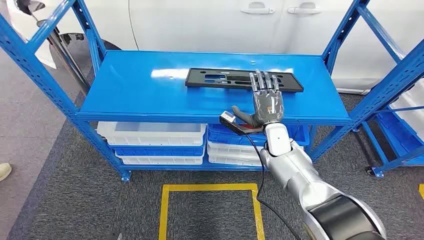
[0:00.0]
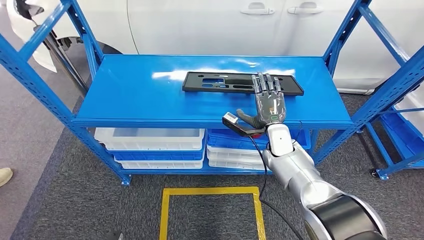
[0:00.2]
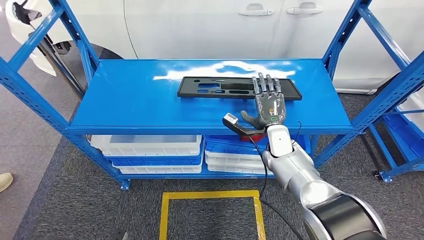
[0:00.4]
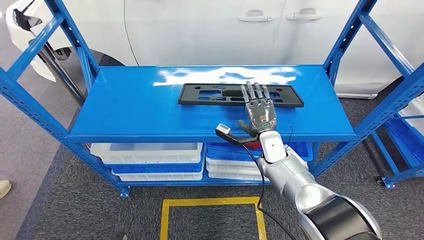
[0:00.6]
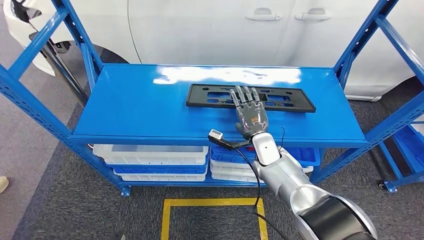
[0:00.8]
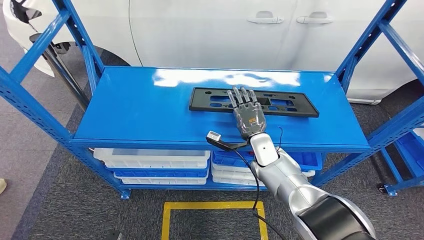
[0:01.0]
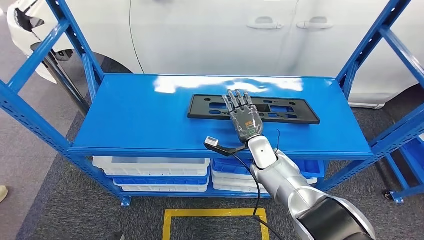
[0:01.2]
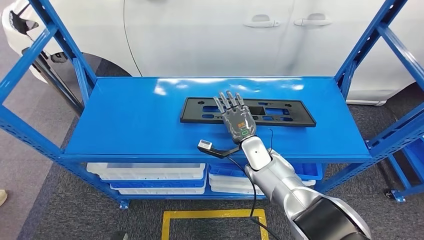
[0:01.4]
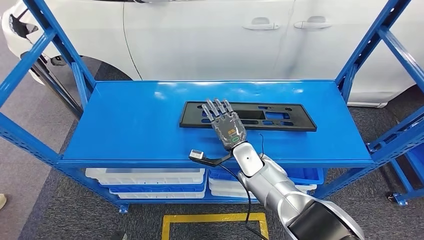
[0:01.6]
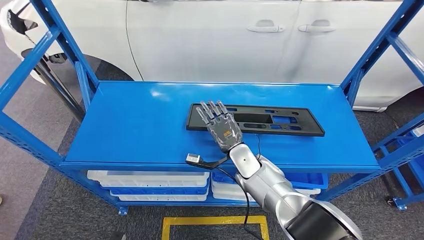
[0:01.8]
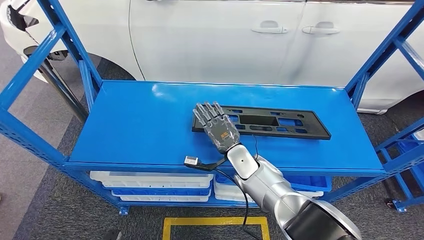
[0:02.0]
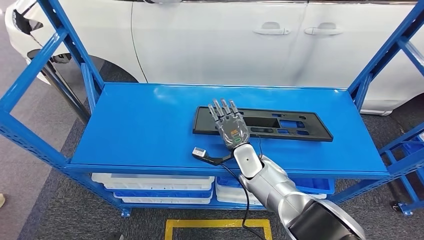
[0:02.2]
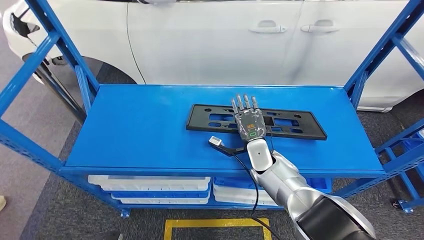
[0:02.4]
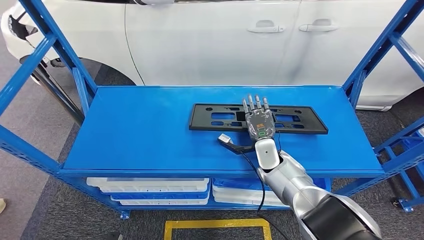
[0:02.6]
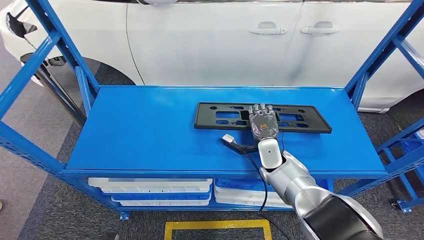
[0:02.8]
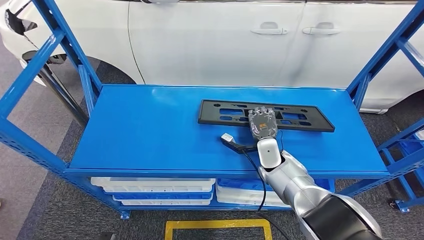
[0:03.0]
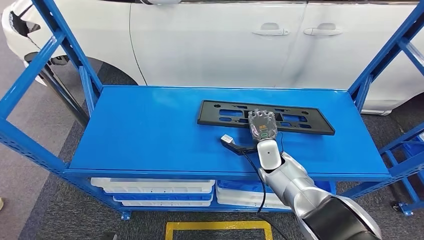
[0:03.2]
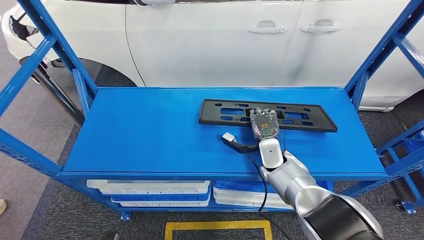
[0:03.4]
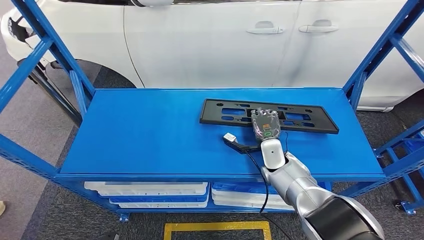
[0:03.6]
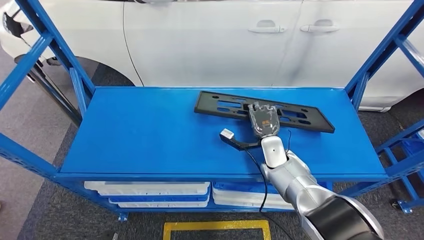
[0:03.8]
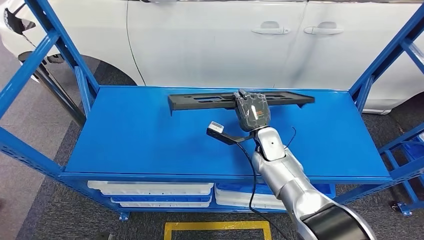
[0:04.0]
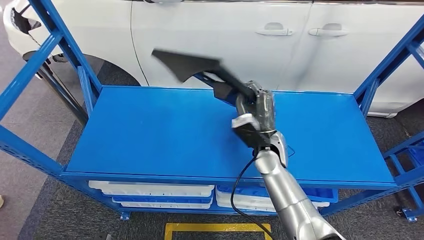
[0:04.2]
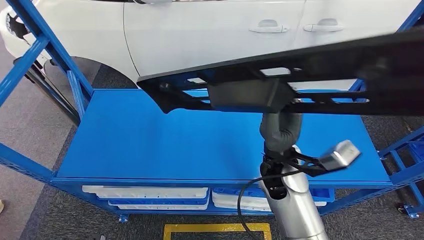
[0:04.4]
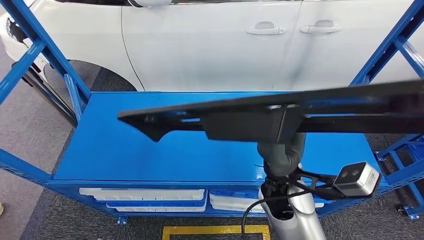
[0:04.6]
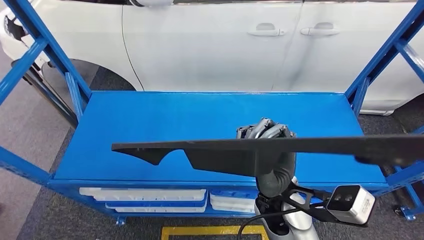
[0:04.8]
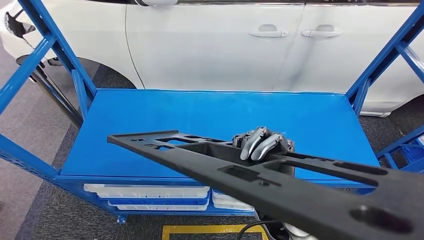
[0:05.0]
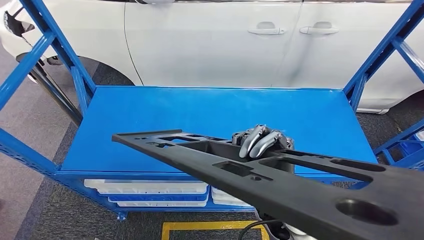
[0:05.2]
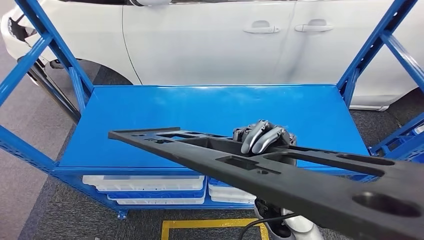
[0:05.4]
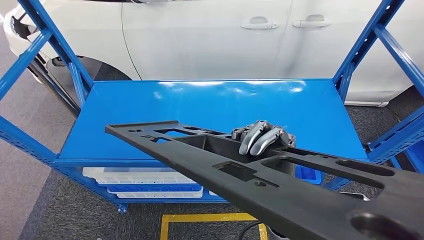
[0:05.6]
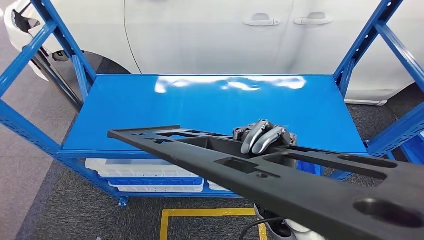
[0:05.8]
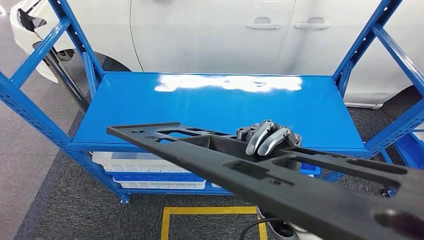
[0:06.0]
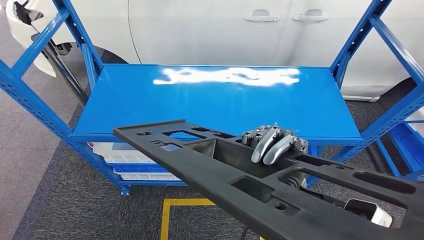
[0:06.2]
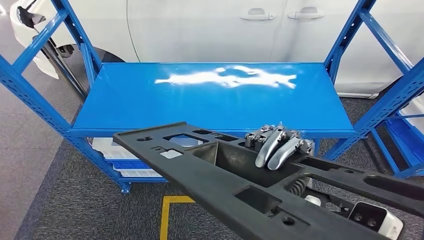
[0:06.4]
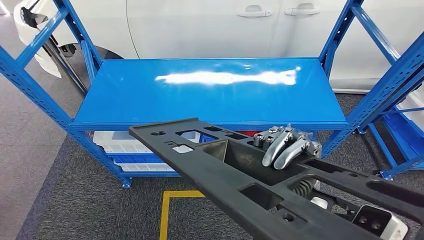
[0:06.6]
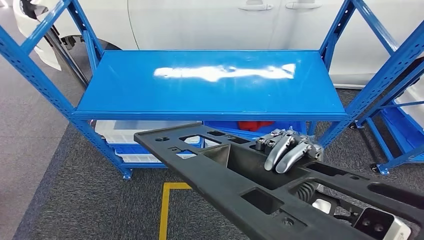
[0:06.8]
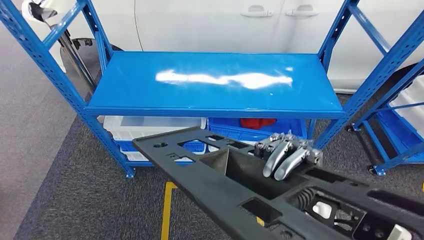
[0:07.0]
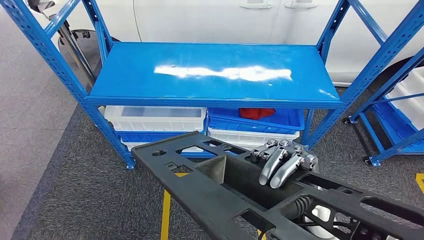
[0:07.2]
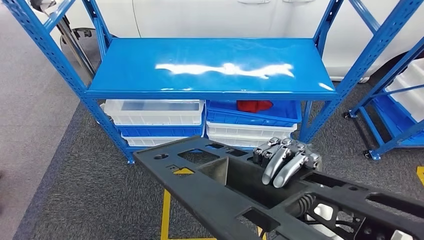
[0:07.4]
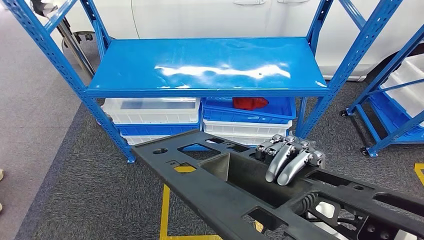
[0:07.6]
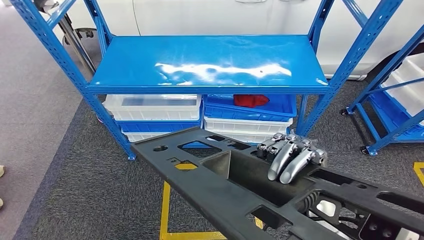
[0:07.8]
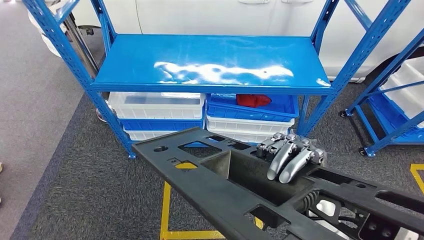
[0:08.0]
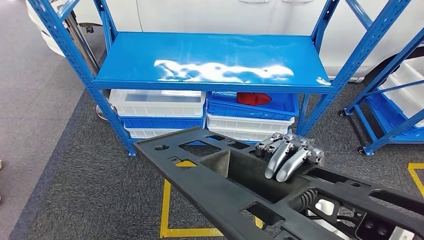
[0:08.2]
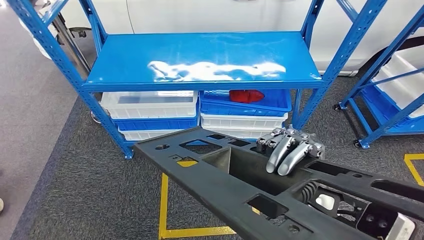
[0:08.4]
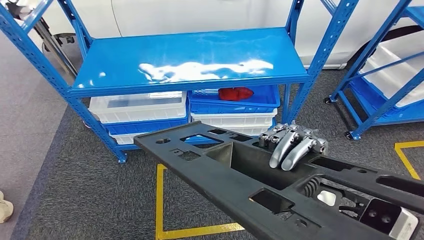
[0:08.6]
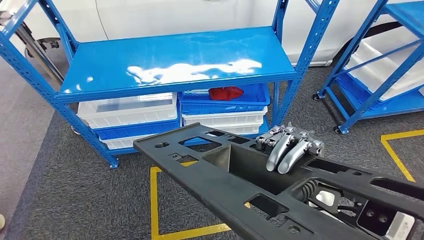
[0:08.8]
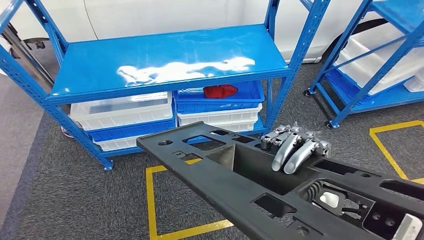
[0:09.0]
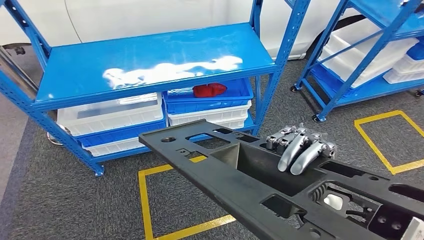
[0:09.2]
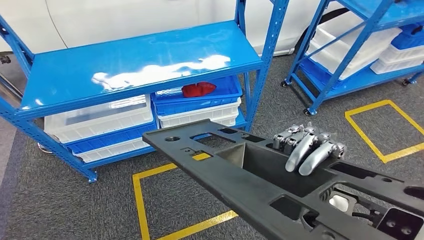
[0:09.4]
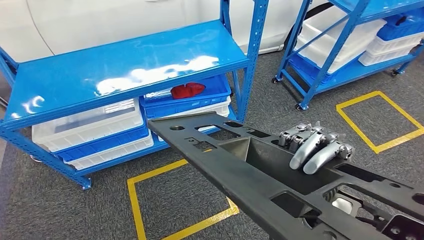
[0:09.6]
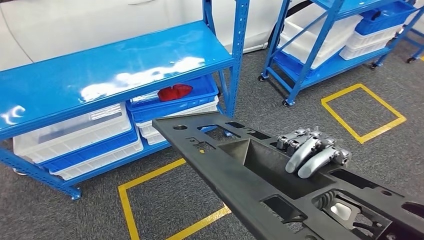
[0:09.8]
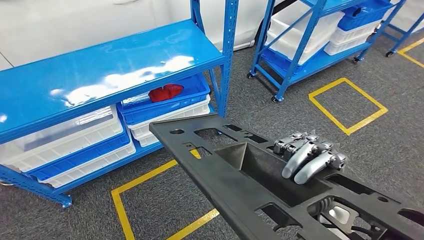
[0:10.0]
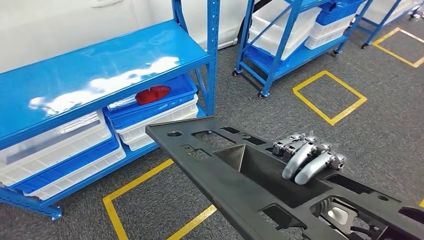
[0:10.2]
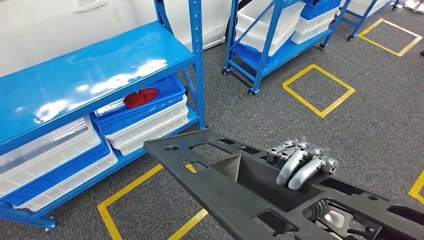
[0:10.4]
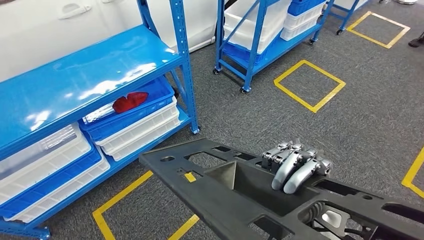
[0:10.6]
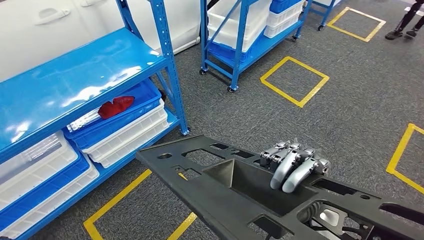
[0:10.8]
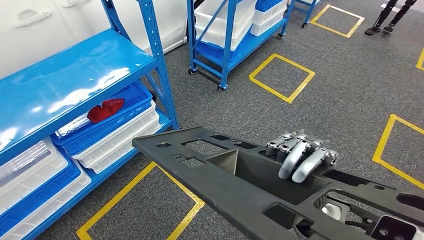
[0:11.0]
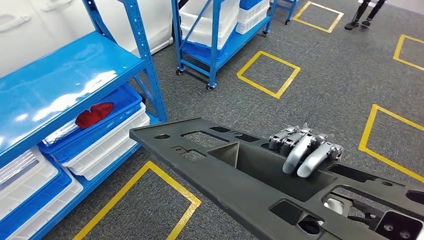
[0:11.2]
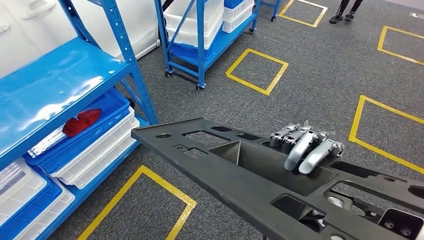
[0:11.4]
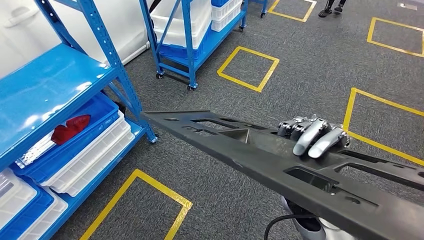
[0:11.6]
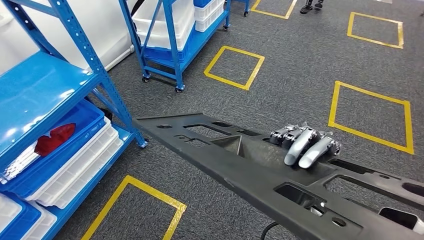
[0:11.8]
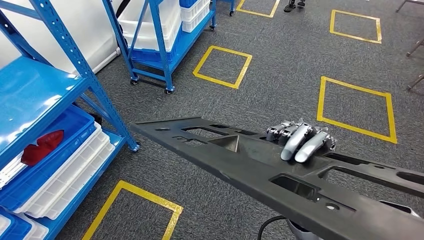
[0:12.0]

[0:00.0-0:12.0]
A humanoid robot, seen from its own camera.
Step, 0:00.0 to 0:05.2: Pick up the large material from the shelf.

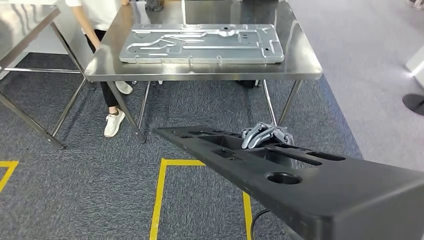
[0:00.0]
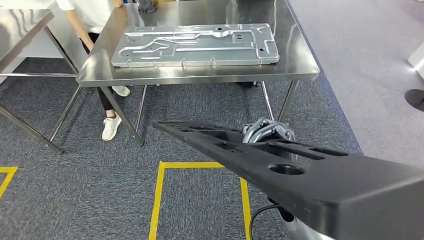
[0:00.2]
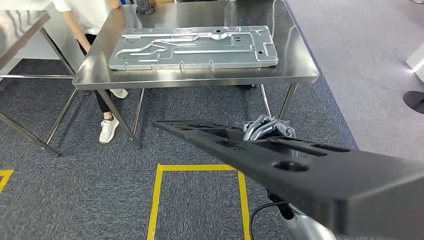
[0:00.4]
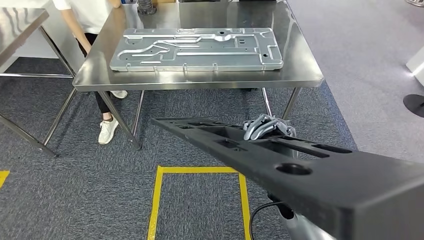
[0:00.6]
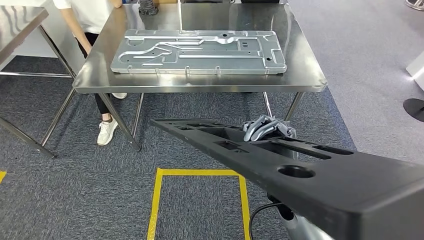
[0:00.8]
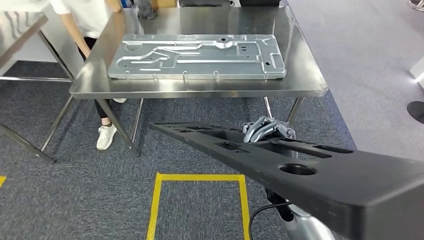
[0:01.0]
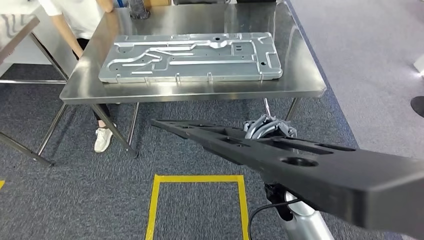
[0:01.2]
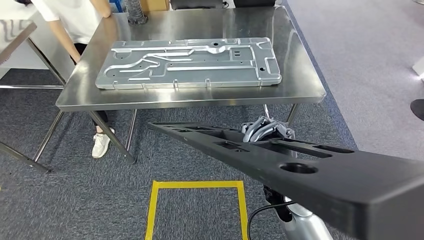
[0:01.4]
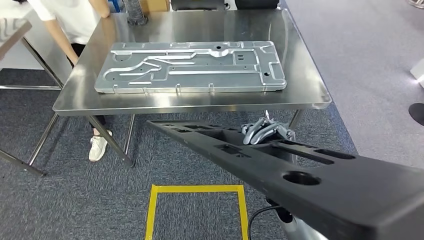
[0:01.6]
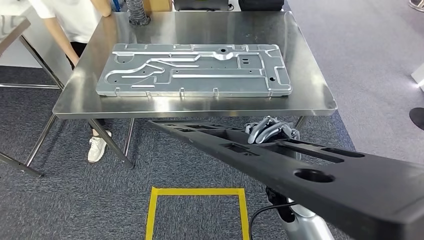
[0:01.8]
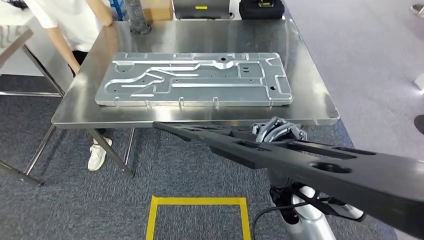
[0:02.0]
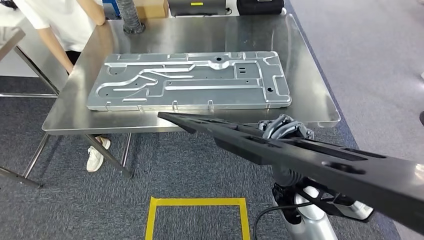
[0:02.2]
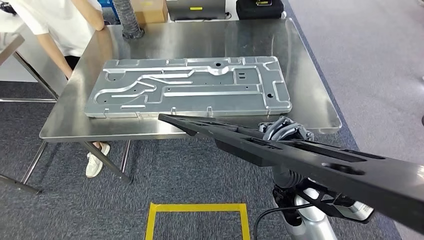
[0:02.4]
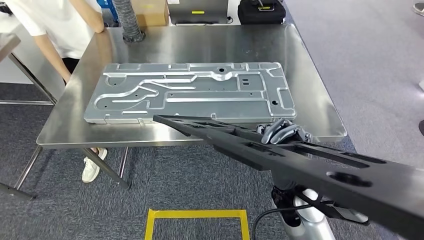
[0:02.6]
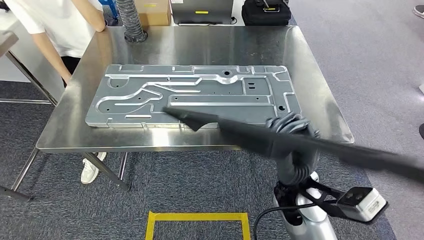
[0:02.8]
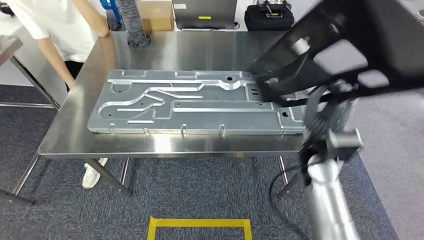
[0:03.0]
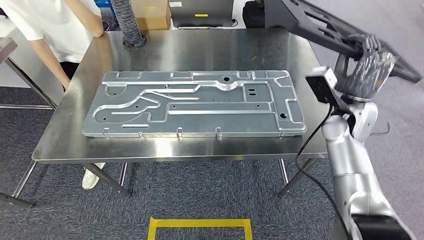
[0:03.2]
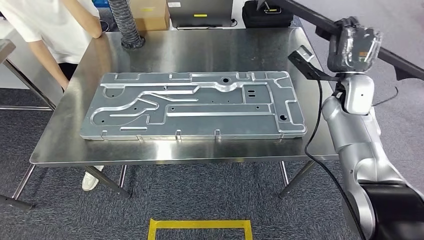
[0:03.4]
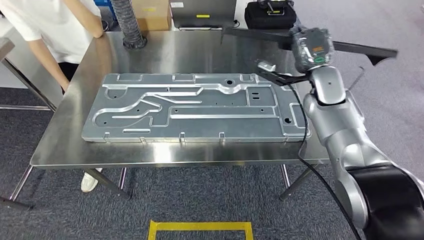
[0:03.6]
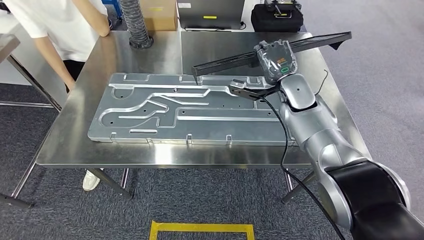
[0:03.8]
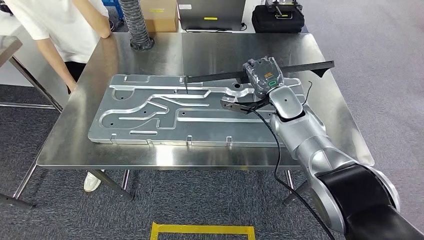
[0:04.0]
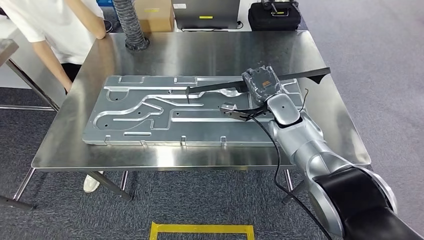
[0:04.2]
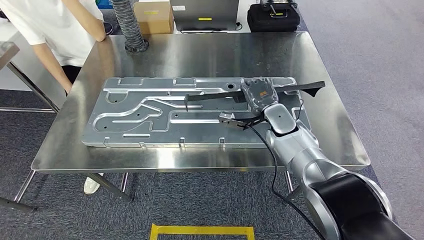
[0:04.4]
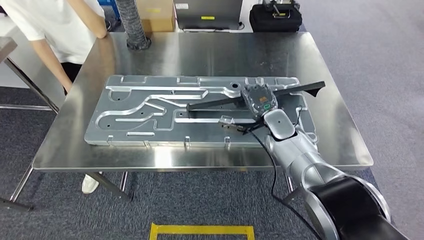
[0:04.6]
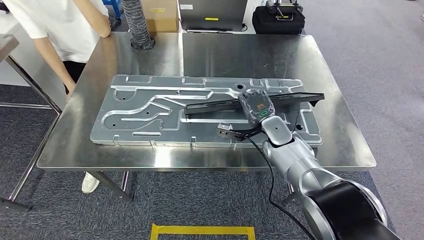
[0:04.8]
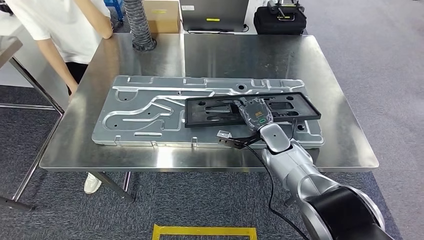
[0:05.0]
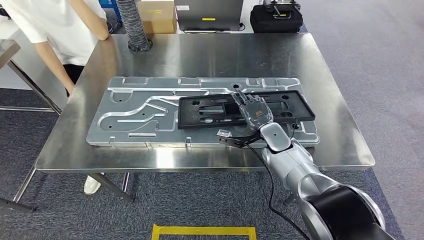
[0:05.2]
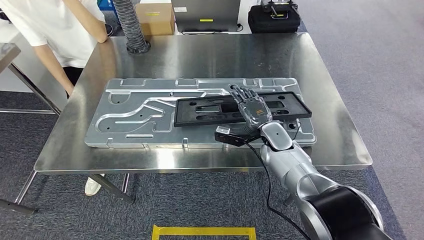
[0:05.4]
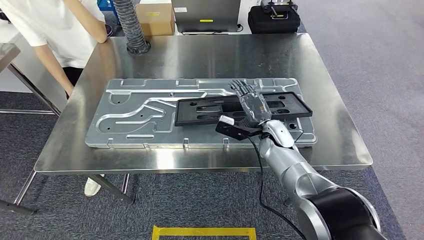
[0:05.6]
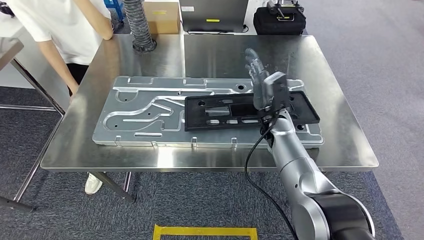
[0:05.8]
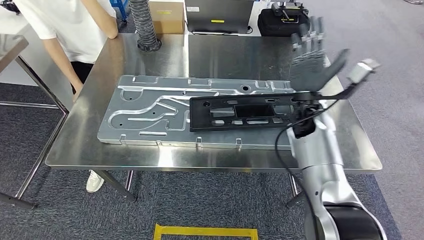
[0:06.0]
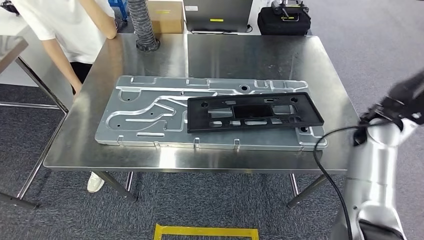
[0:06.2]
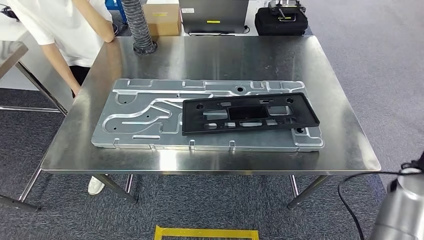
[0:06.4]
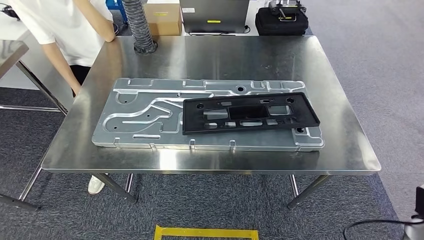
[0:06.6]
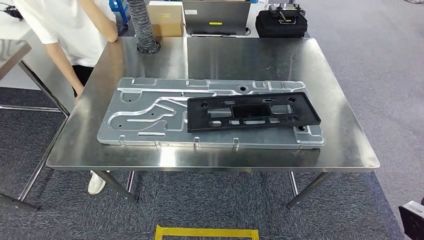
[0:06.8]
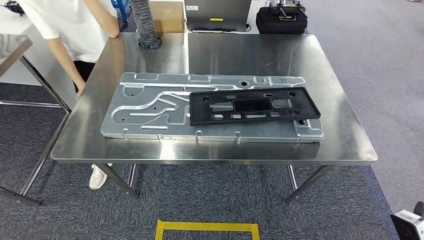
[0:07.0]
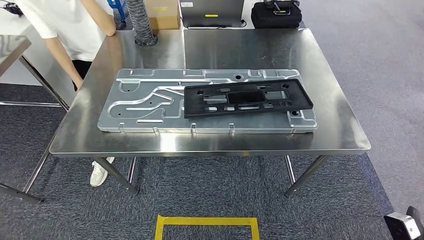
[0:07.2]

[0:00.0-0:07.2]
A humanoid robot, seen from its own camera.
Step, 0:00.0 to 0:04.0: Move the large material to the workbench.
Step, 0:04.4 to 0:07.0: Insert the large material into the corresponding slot on the workbench.
